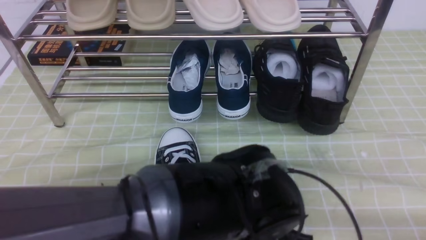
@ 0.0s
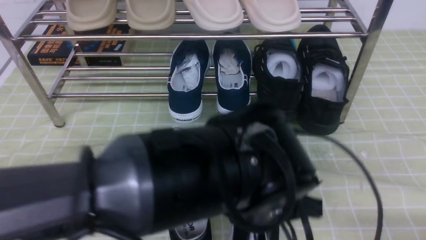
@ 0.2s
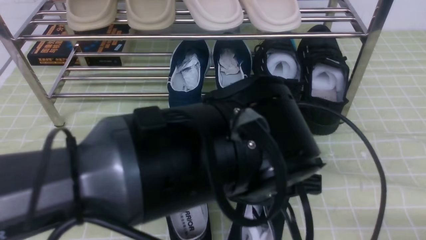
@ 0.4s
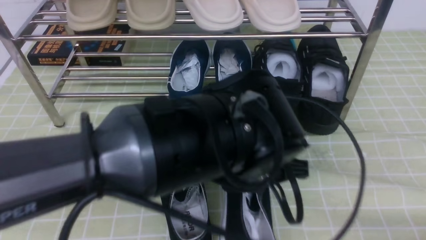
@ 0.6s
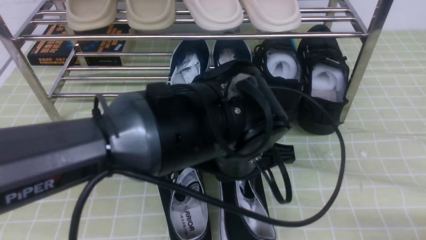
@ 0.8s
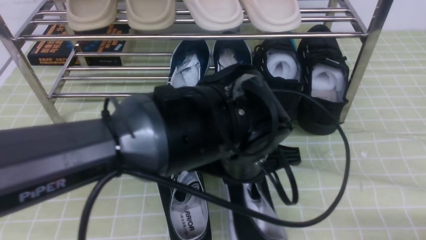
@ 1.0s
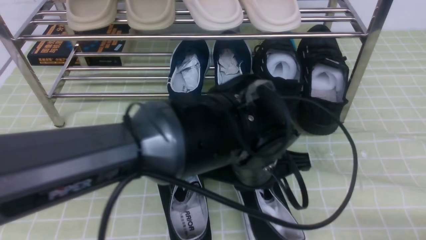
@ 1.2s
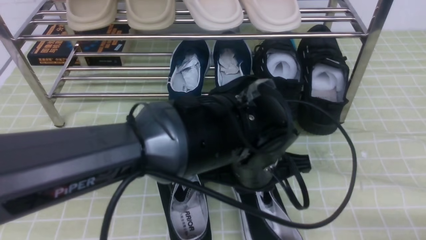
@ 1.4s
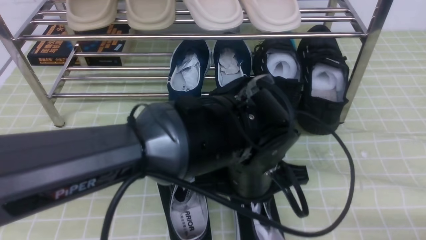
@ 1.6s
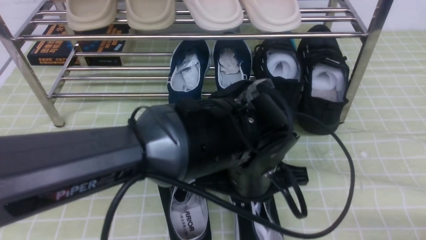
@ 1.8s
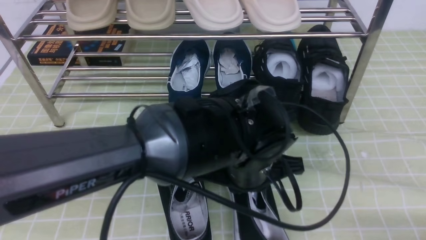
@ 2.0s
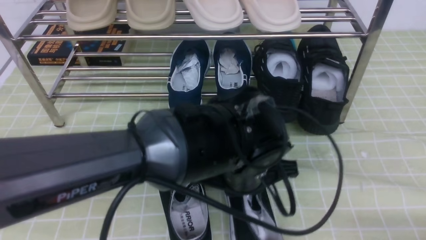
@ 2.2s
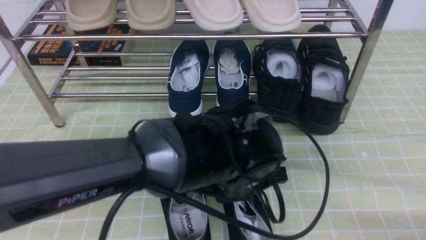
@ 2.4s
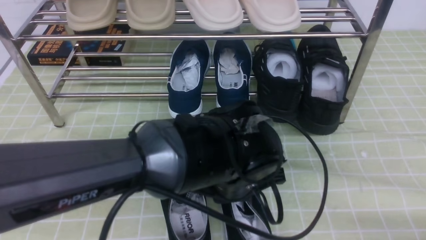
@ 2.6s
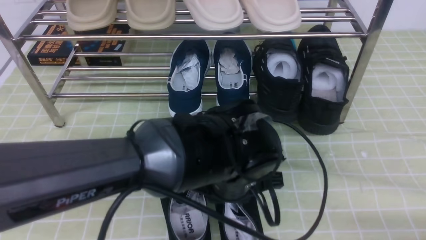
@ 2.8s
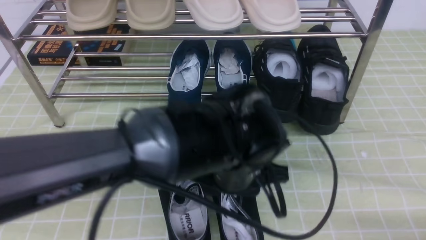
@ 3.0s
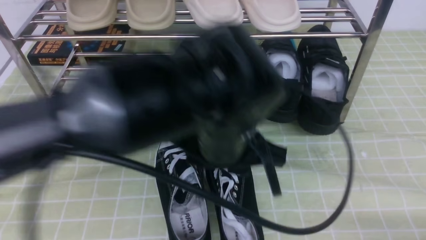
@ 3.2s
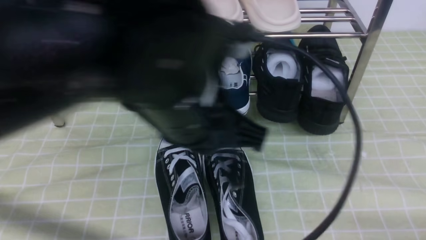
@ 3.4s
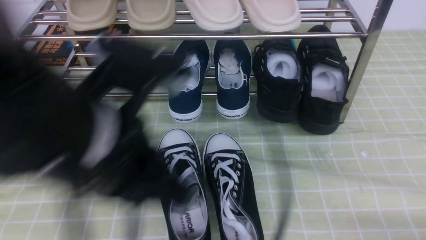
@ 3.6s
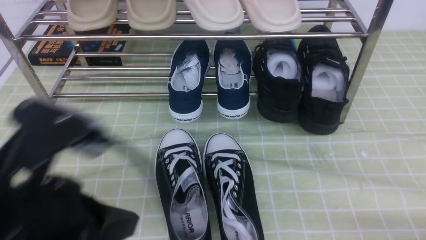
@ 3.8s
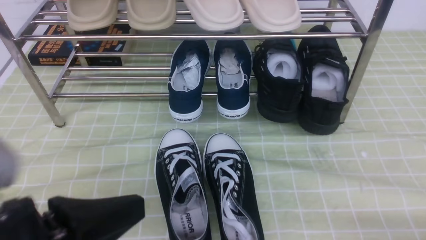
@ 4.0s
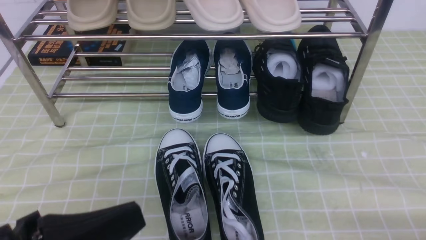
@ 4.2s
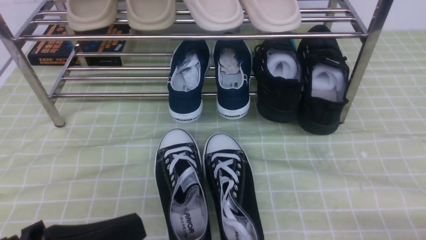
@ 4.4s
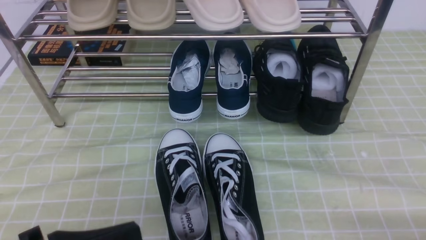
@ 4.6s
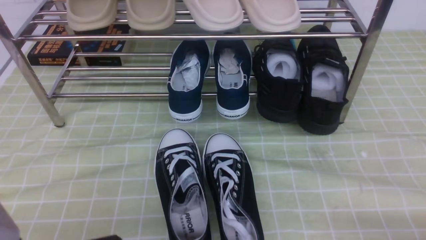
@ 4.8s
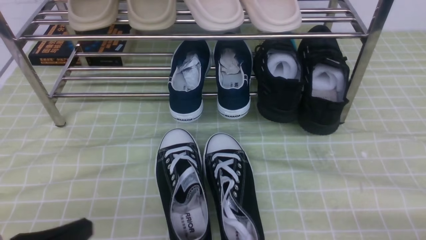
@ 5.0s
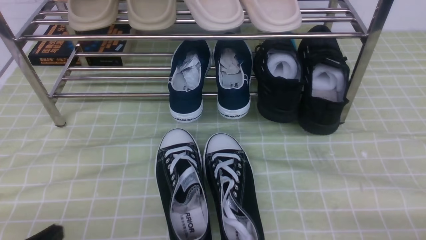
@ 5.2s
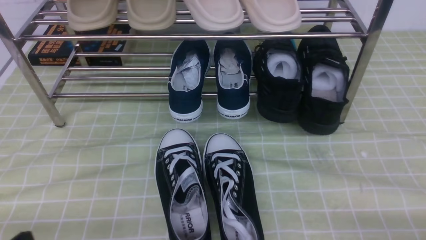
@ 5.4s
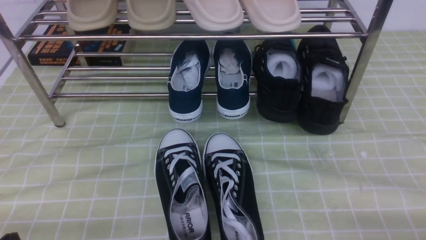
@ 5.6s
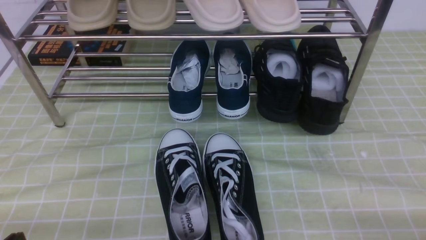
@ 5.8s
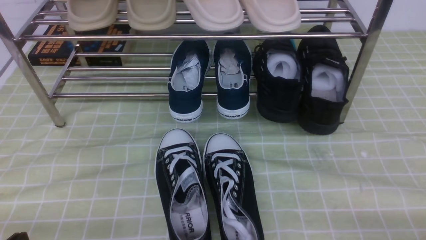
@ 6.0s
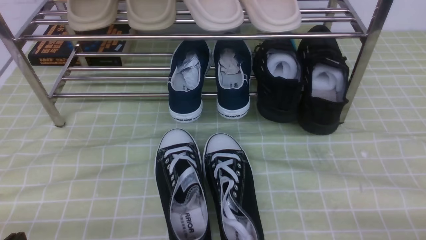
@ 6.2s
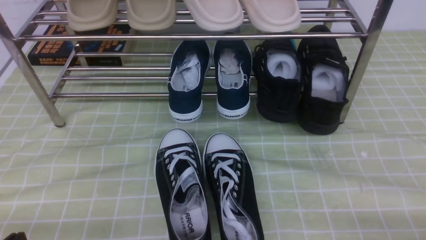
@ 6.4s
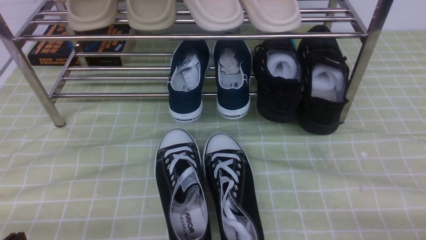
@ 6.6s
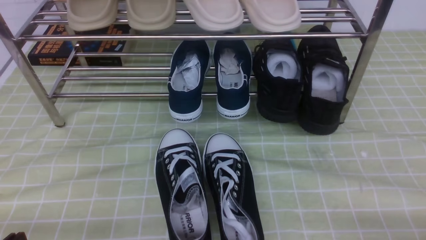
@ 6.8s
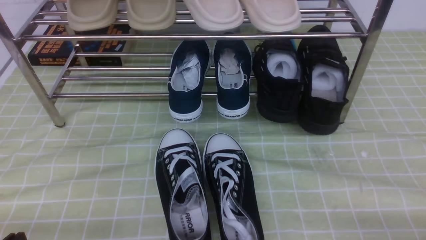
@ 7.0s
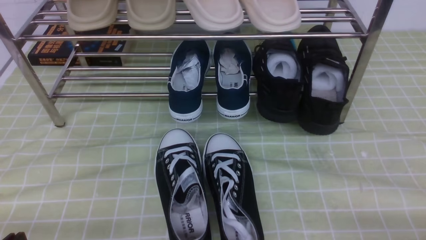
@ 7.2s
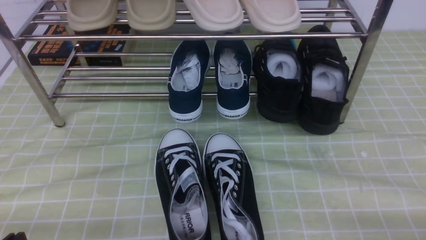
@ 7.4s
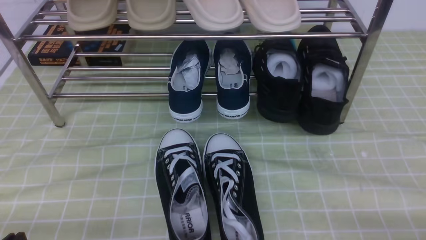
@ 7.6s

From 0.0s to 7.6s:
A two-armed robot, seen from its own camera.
From 0.0s to 1.6s: The left gripper shifts some 5 cm forward.
From 1.6s to 3.0s: The left gripper opens.
From 3.0s to 4.6s: The left gripper shifts about 25 cm to the left and backward, and closes up.
From 4.6s to 6.0s: The left gripper moves downward and to the left, approximately 10 cm.
From 6.0s to 7.6s: The two grippers keep their place.

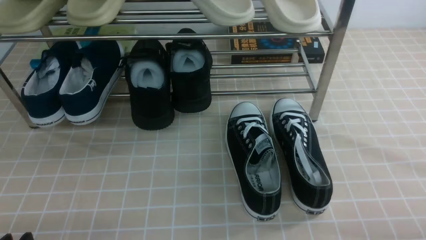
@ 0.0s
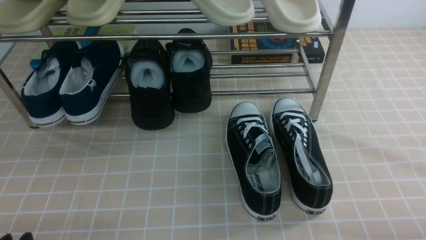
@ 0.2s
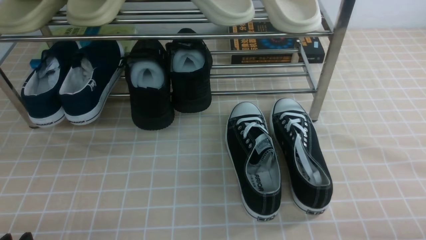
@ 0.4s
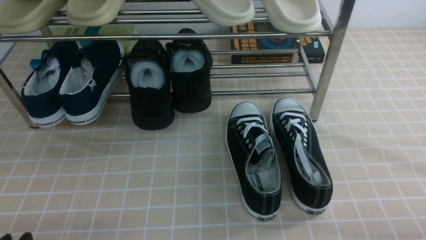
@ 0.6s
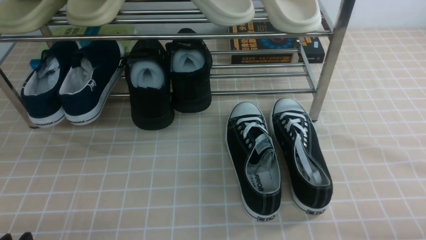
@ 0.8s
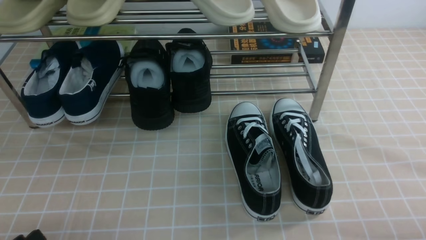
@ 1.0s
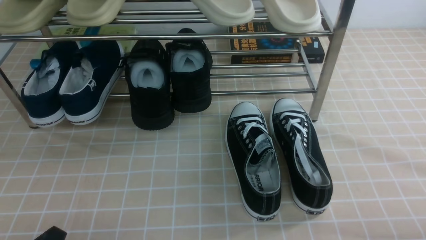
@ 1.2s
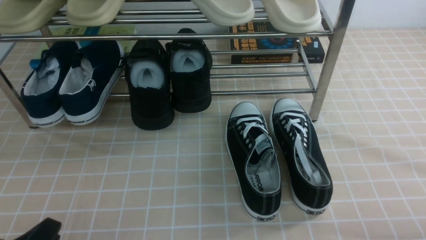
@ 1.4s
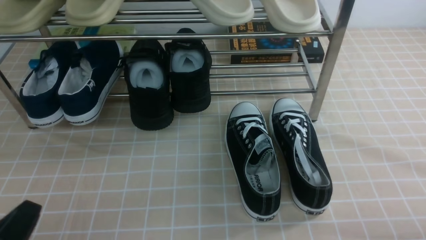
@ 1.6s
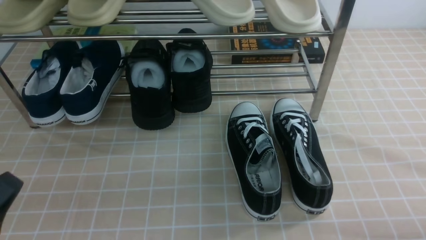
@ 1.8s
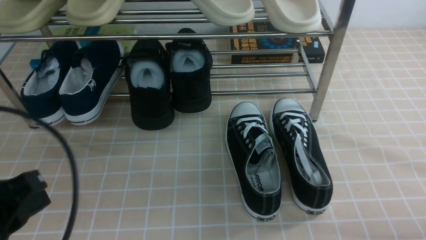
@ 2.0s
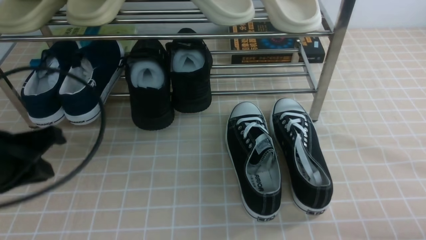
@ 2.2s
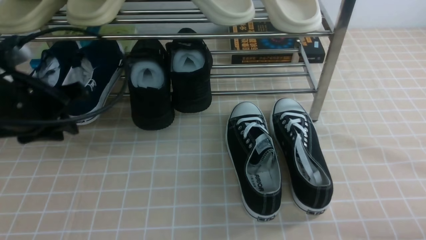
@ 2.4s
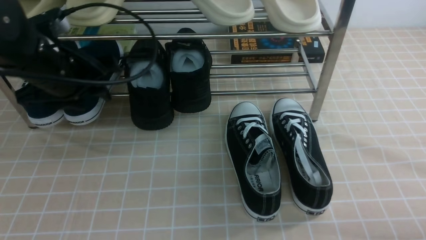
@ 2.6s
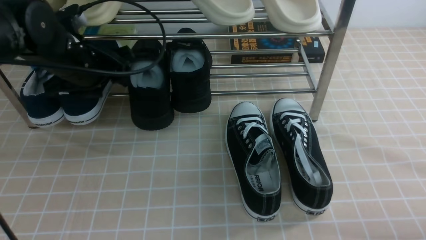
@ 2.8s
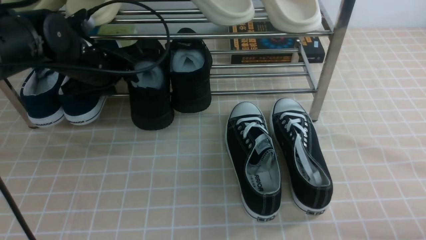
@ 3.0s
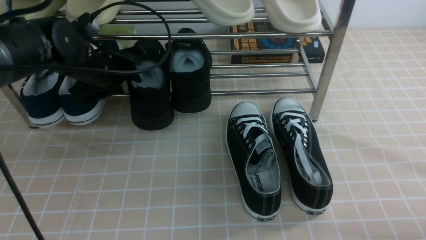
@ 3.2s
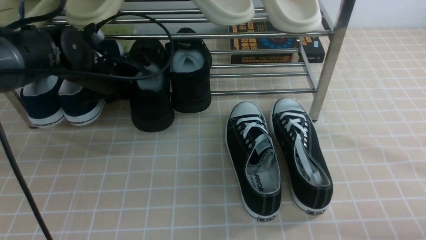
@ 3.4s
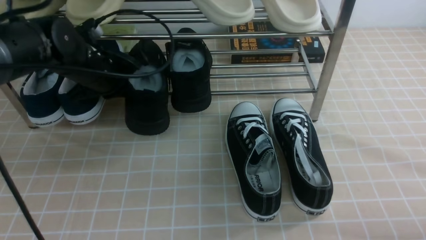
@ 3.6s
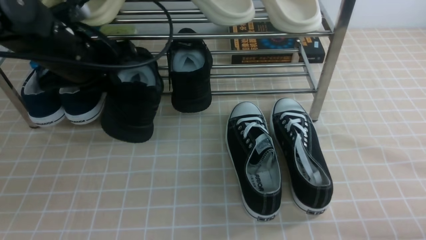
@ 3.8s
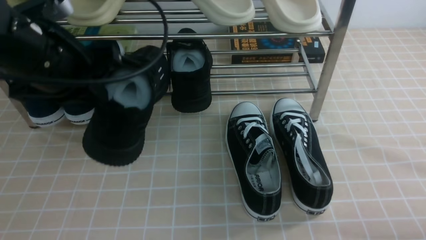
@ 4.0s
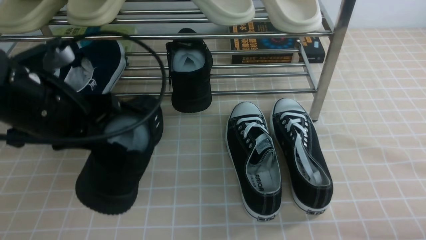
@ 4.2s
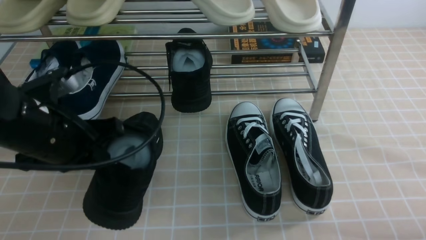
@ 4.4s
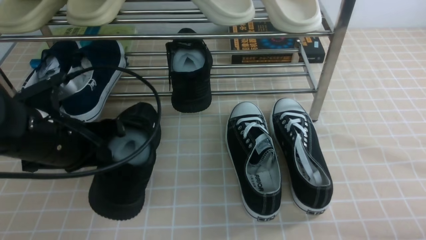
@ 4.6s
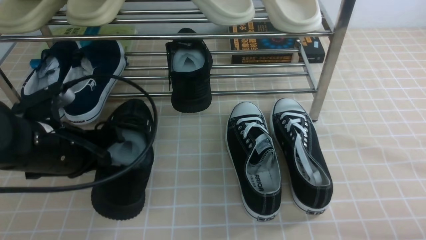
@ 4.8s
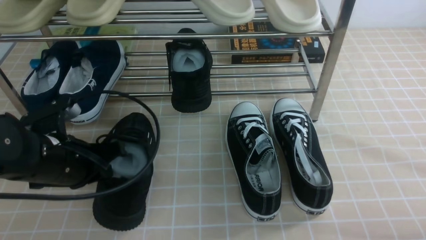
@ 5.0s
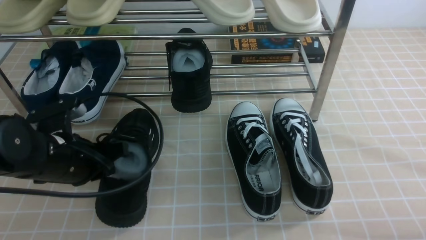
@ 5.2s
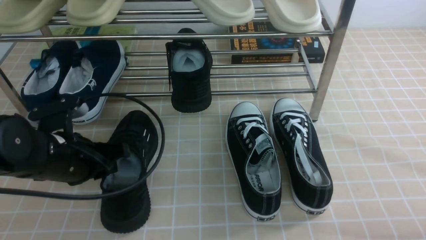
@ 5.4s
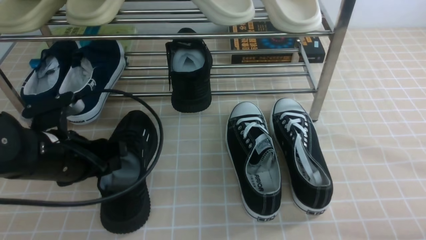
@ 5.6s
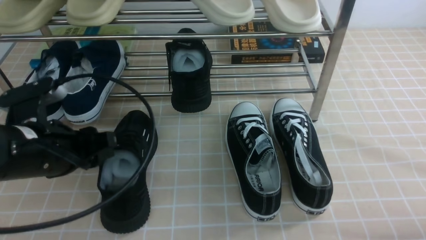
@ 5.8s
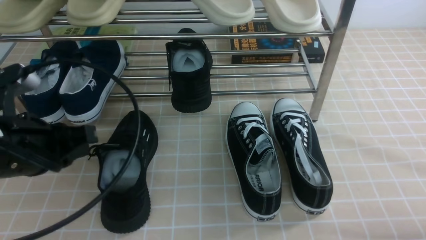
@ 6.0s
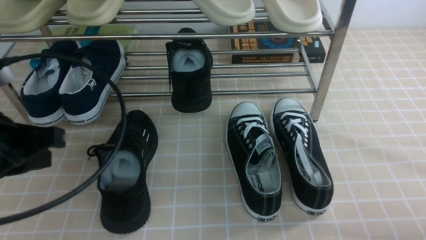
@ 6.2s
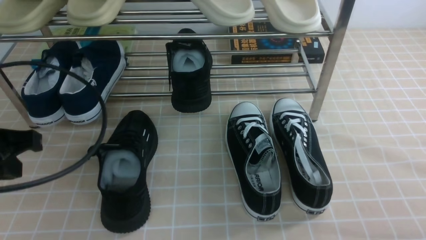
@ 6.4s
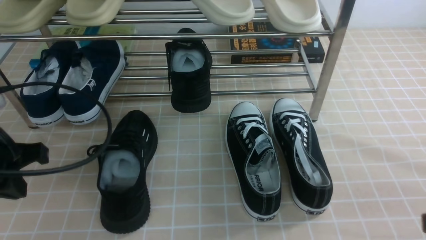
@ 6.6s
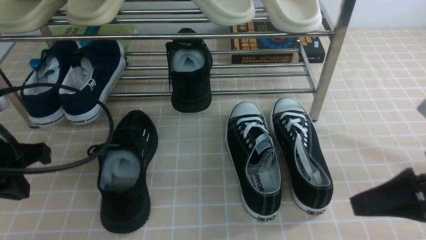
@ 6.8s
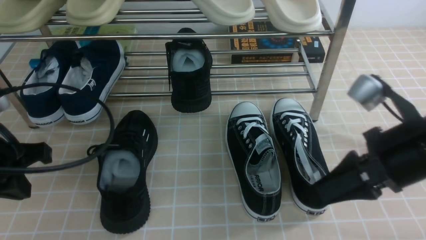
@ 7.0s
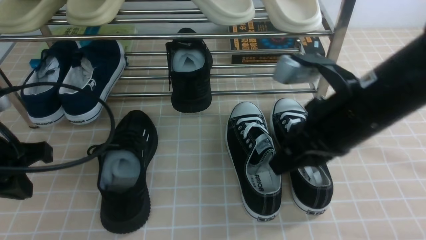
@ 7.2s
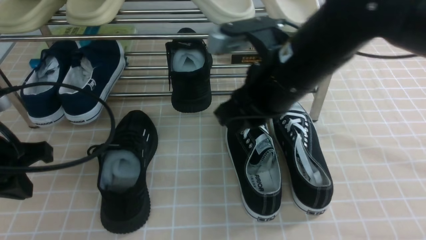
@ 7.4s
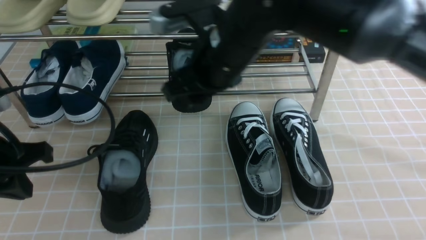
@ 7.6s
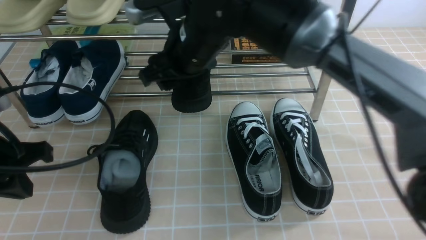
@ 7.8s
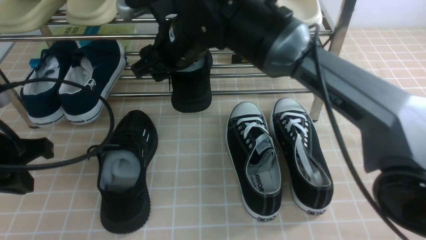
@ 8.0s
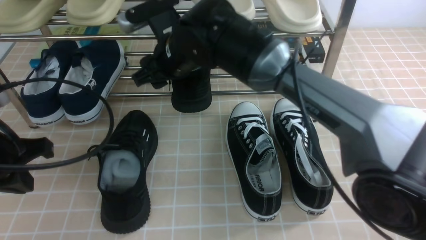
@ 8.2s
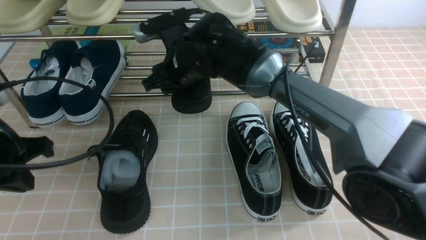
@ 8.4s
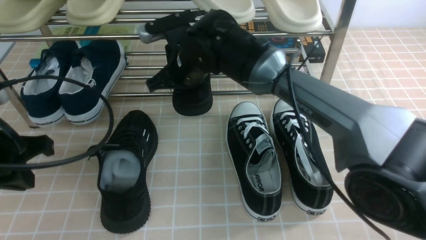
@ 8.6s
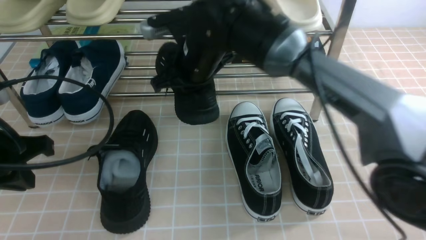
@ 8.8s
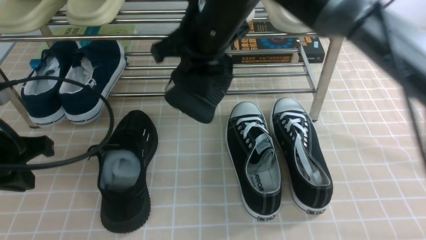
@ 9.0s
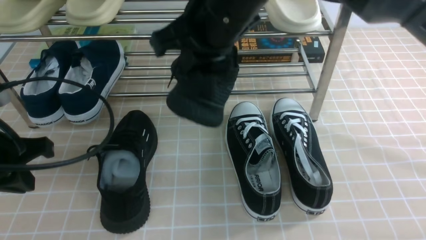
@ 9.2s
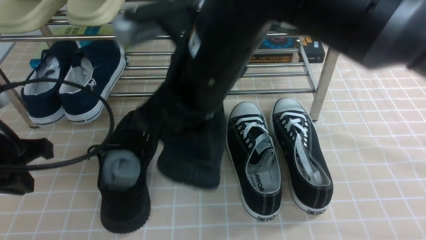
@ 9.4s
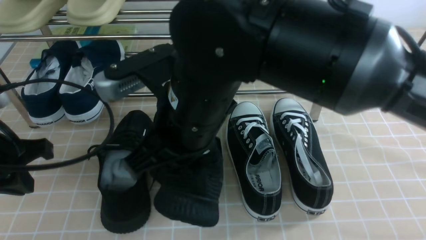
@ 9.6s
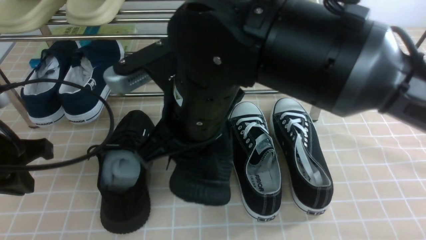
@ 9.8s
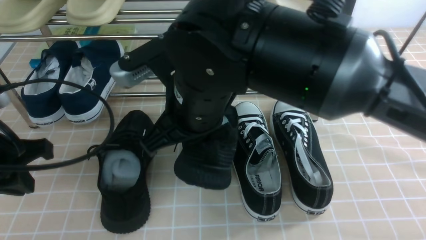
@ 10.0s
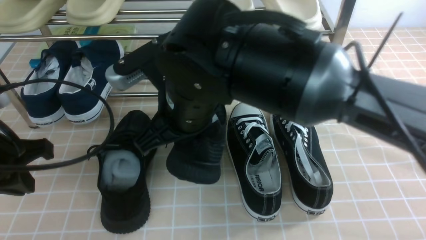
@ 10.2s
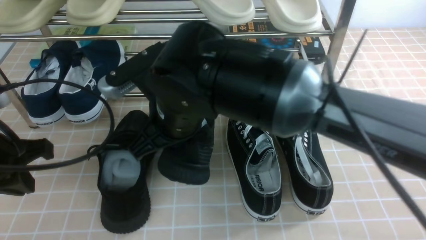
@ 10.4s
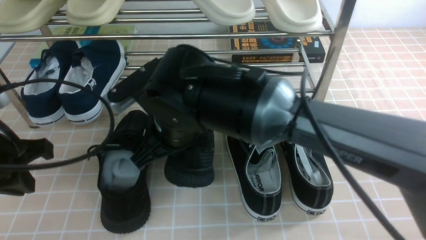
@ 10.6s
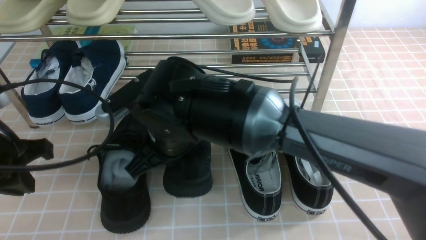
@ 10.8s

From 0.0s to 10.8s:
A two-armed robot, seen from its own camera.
Step, from 0.0s to 3.4s: use the left arm to clamp a shoe in the middle of the shoe rack.
Step, from 3.6s to 6.0s: Use your left arm to remove the clamped shoe from the shoe rack and put it down.
Step, from 6.2s to 8.4s: use the right arm to clamp a shoe in the middle of the shoe rack.
From 0.0s to 1.6s: The left gripper shifts about 5 cm upward.
From 1.6s to 3.0s: The left gripper travels forward by approximately 35 cm, and opens.
From 3.0s to 4.6s: The left gripper is displaced backward by approximately 15 cm, and closes its fingers.
From 4.6s to 6.2s: The right gripper ends up roughly 5 cm from where it was. The left gripper moves upward and backward, some 5 cm, and opens, then closes again.
From 6.2s to 7.8s: The right gripper moves to the left and forward, about 40 cm, and opens its fingers.
From 7.8s to 9.2s: The right gripper goes about 10 cm backward and upward, and closes its fingers.
From 9.2s to 10.8s: The right gripper heads downward and to the left, covering approximately 15 cm.
